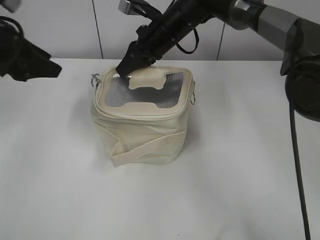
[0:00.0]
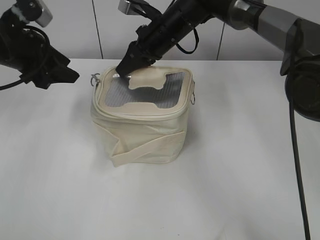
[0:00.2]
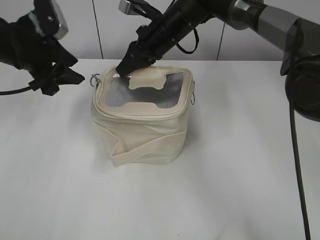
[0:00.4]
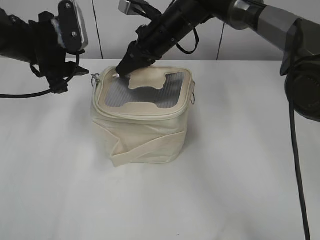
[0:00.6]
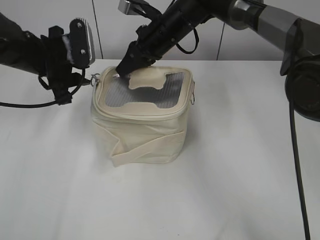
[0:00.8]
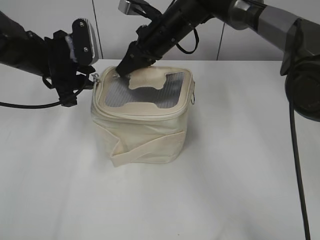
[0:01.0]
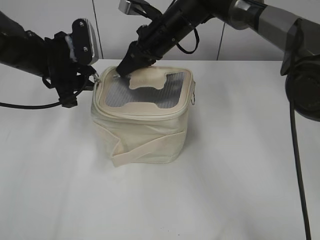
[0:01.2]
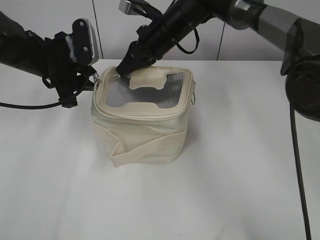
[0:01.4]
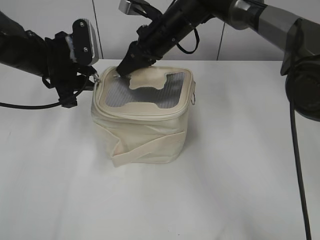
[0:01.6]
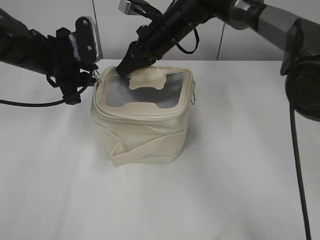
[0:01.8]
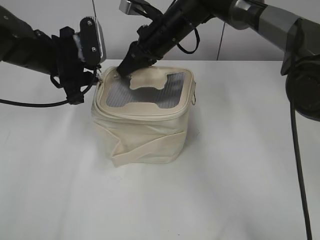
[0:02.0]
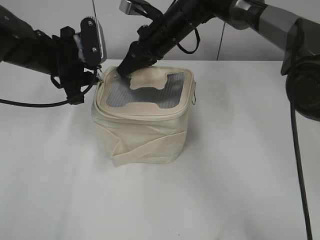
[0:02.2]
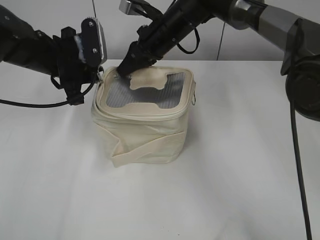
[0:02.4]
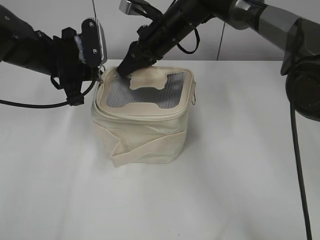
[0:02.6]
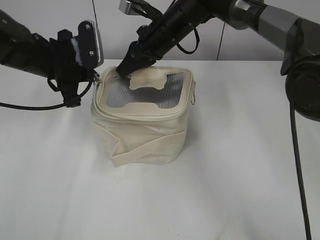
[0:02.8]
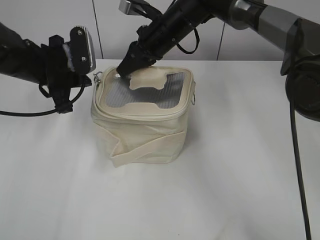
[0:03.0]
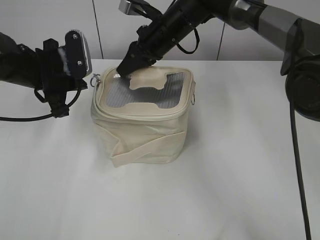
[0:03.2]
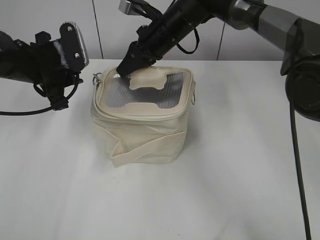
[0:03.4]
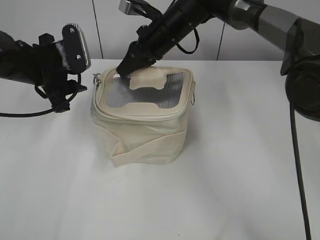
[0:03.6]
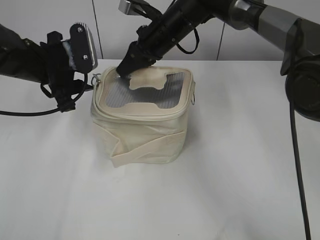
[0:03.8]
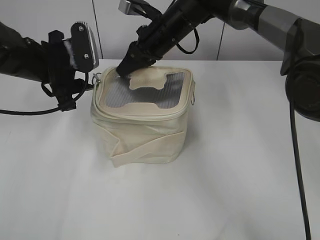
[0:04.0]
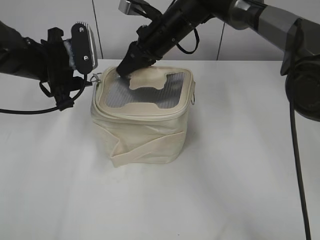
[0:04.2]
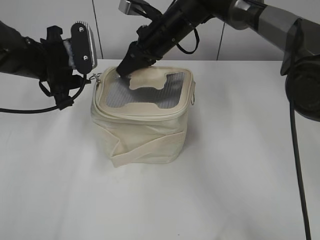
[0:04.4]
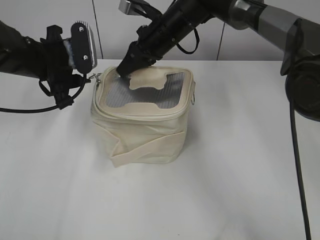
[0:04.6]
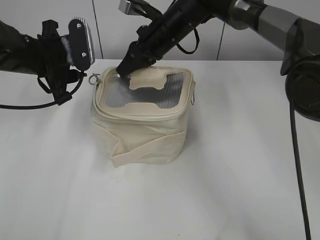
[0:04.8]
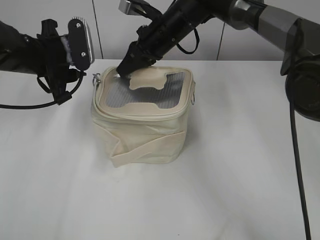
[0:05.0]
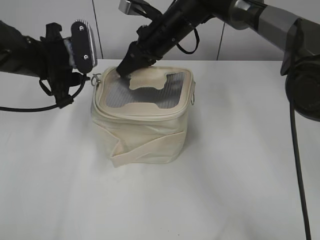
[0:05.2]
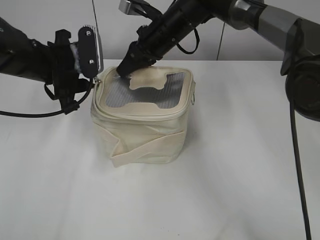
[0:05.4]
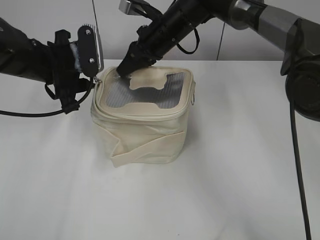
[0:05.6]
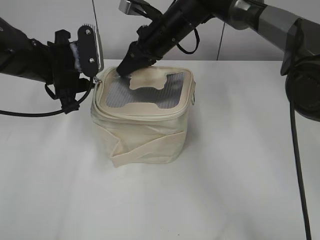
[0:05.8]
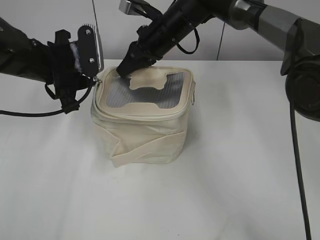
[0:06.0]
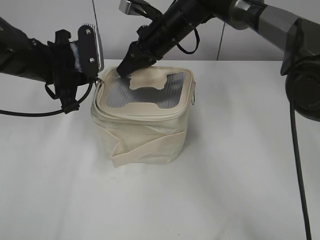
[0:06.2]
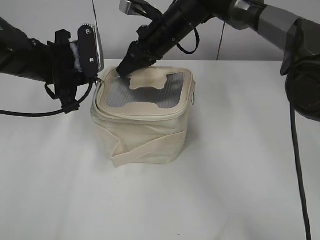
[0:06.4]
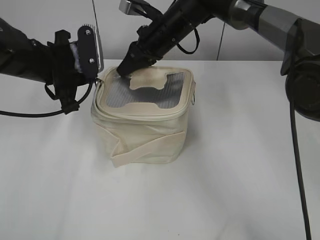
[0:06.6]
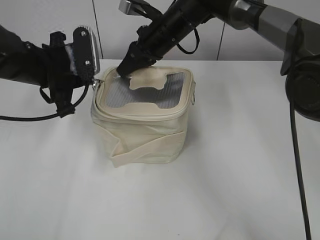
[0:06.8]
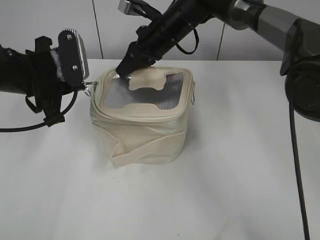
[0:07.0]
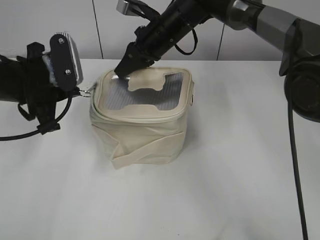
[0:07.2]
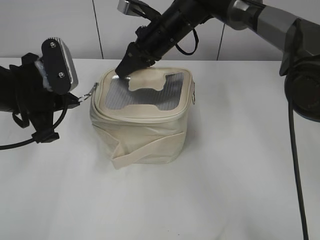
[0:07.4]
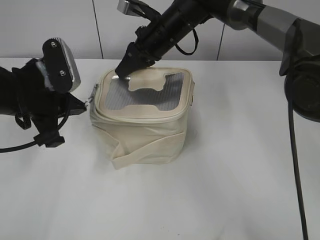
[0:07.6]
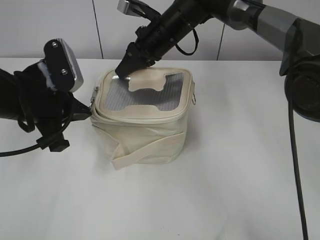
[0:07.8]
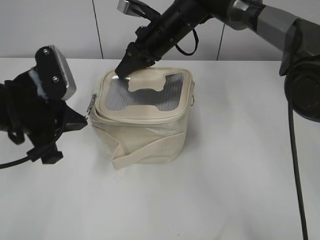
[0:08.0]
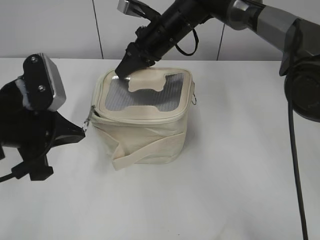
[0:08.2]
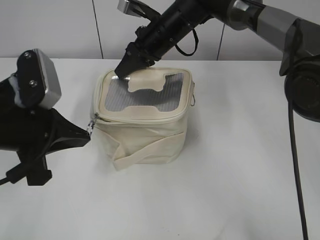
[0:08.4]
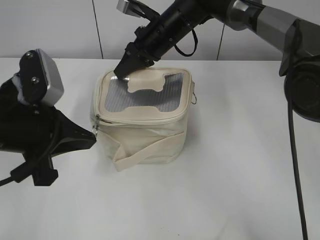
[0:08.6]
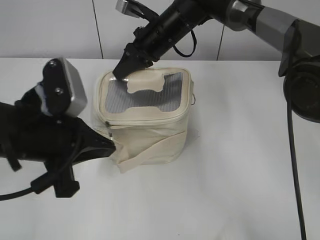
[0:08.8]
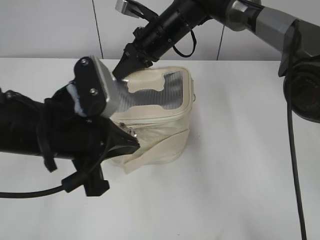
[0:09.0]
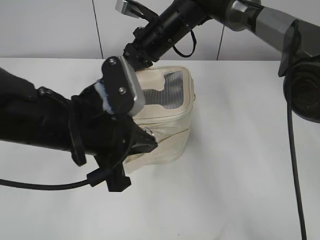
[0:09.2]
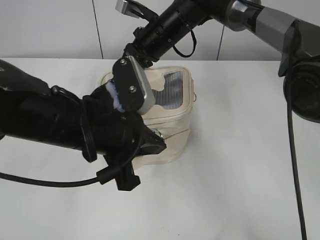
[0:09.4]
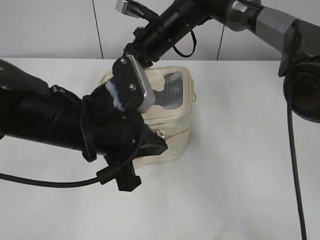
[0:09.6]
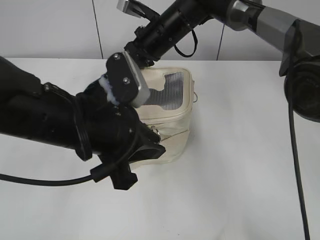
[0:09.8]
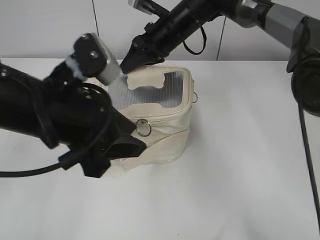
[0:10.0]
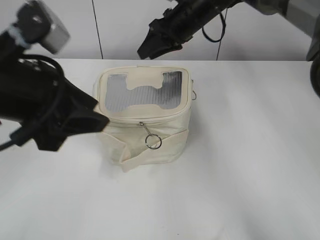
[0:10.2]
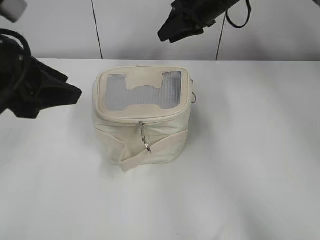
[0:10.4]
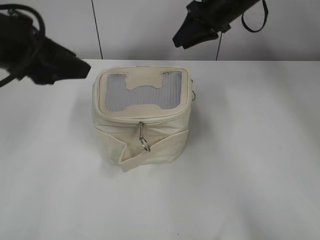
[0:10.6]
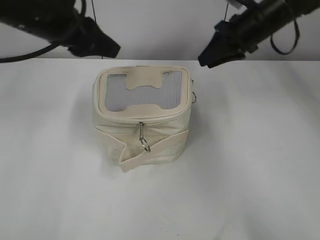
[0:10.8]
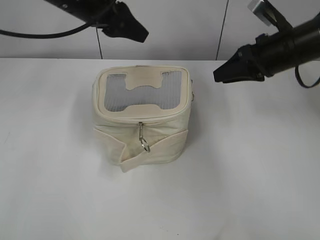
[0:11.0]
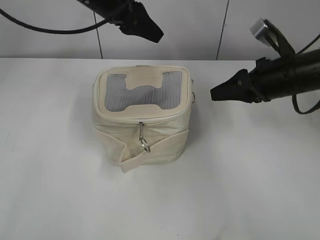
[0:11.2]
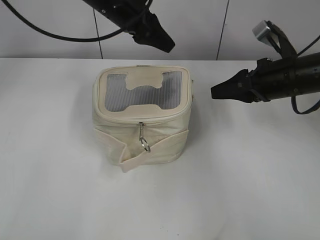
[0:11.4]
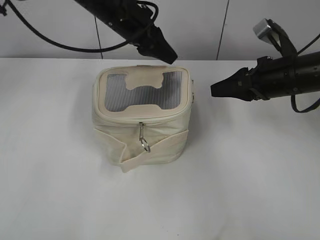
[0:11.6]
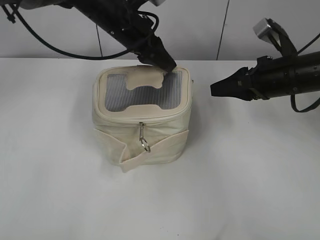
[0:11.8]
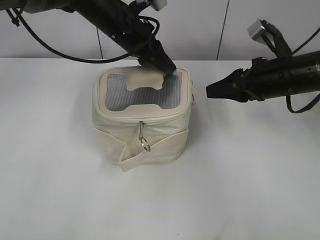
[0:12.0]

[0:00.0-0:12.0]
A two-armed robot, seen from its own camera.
Step, 0:00.0 to 0:10.0: Zip up the bag with your left hand.
0:00.0 to 0:01.6: The left gripper goes about 10 cm to the right, downward and forward.
0:01.6 to 0:03.0: The left gripper closes.
0:03.0 to 0:04.4: The left gripper opens its fingers.
0:04.4 to 0:06.0: The grippers make only small movements.
0:06.0 to 0:07.6: The left gripper is displaced backward by about 5 cm, and closes.
0:07.6 to 0:09.0: The left gripper shifts about 10 cm backward and to the right.
0:09.0 to 0:10.4: The left gripper travels upward and to the left by approximately 10 cm, and opens; the right gripper shifts approximately 10 cm to the right, and opens its fingers.
0:10.4 to 0:12.0: The left gripper travels forward and to the right by roughly 25 cm; the right gripper shifts about 20 cm backward, to the right and downward.

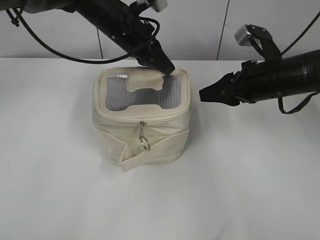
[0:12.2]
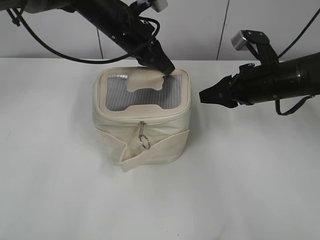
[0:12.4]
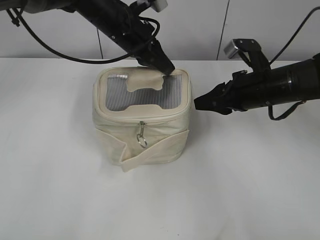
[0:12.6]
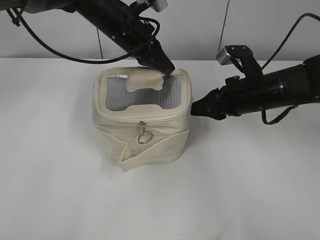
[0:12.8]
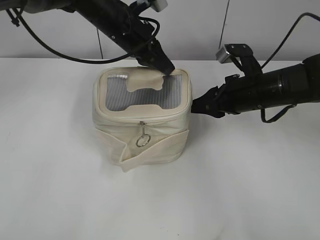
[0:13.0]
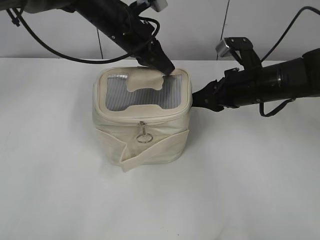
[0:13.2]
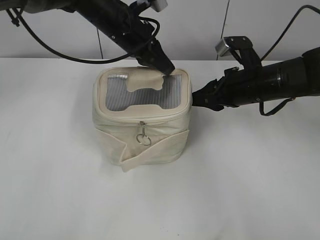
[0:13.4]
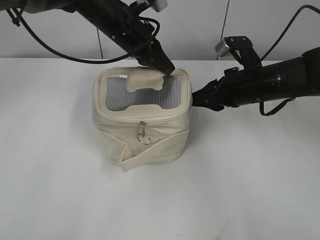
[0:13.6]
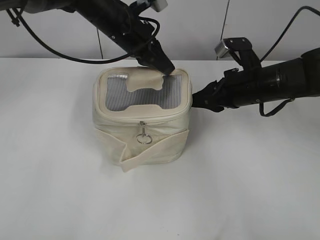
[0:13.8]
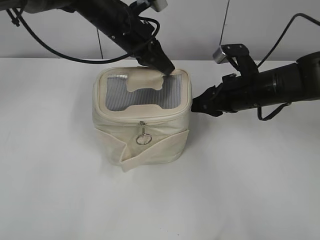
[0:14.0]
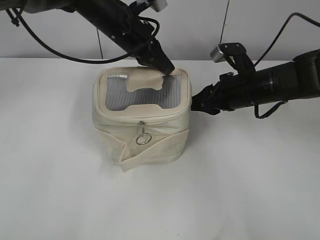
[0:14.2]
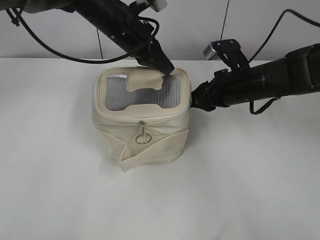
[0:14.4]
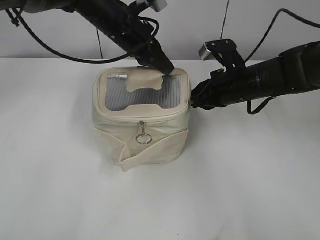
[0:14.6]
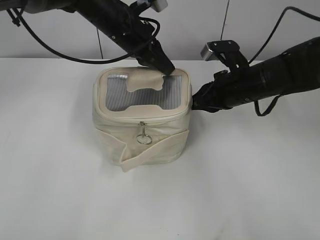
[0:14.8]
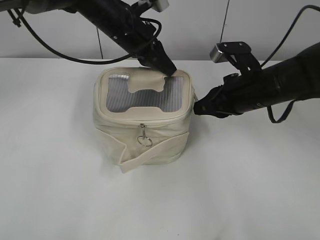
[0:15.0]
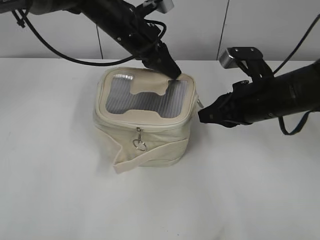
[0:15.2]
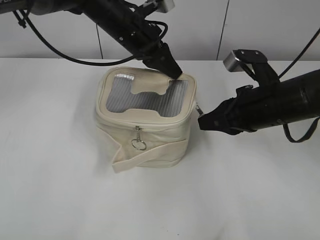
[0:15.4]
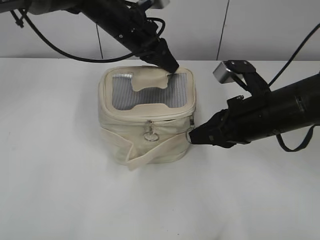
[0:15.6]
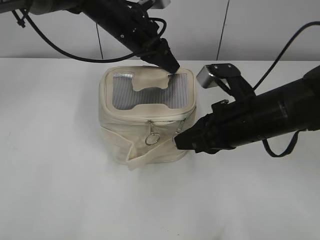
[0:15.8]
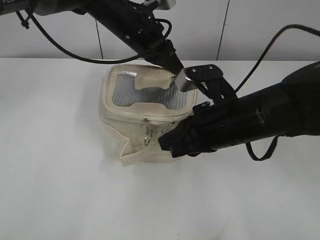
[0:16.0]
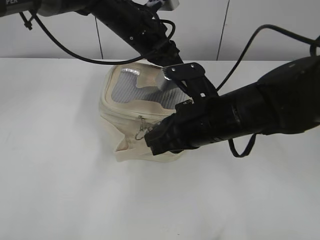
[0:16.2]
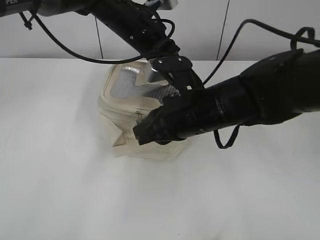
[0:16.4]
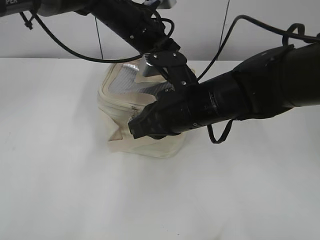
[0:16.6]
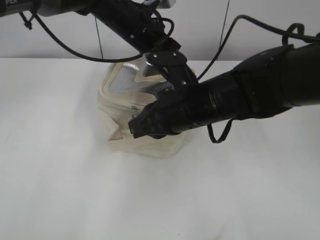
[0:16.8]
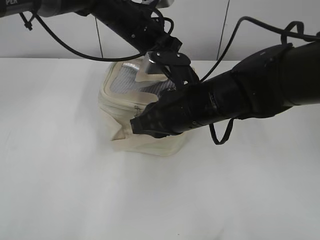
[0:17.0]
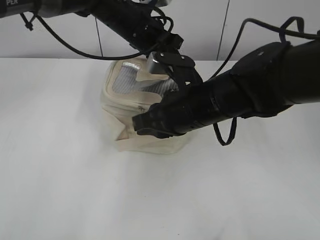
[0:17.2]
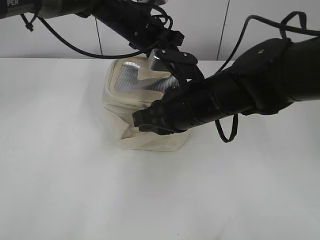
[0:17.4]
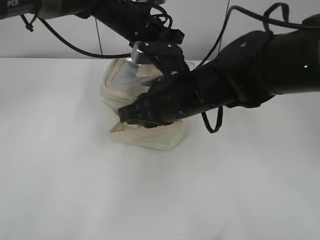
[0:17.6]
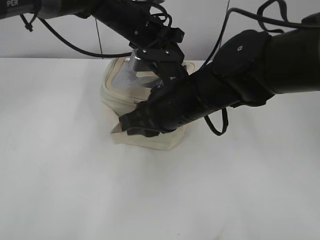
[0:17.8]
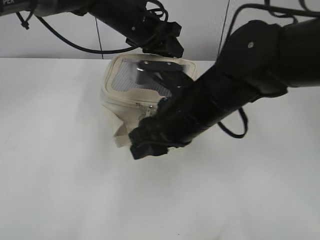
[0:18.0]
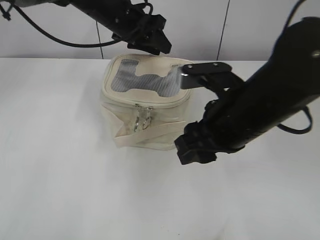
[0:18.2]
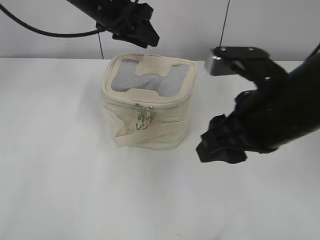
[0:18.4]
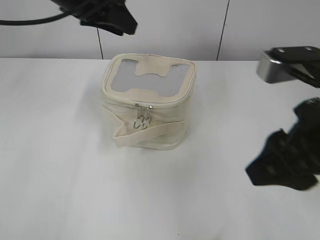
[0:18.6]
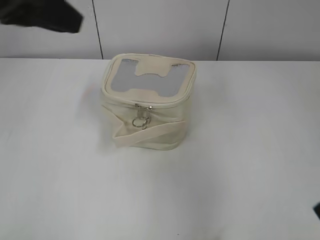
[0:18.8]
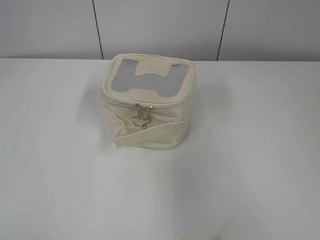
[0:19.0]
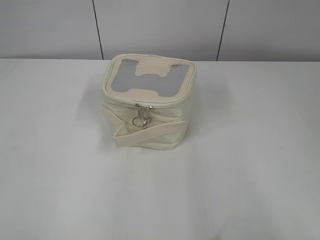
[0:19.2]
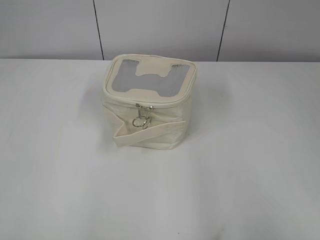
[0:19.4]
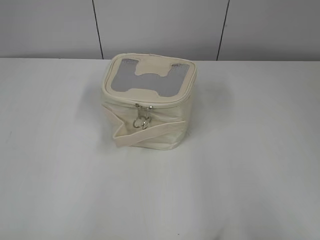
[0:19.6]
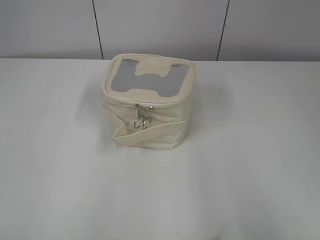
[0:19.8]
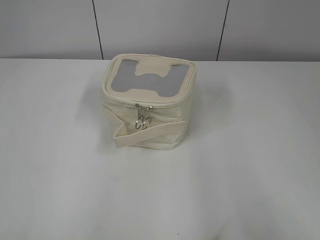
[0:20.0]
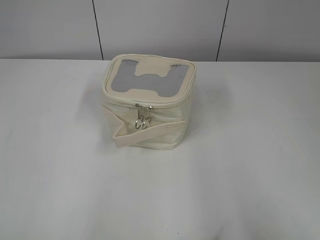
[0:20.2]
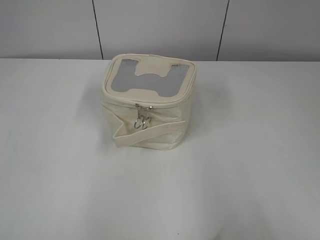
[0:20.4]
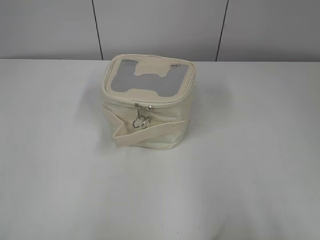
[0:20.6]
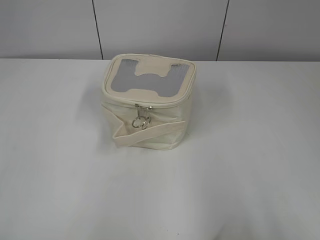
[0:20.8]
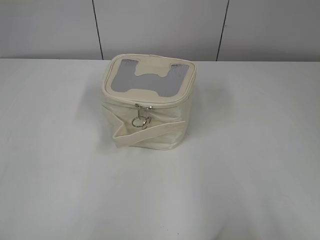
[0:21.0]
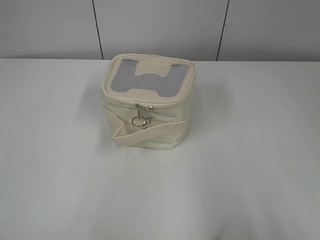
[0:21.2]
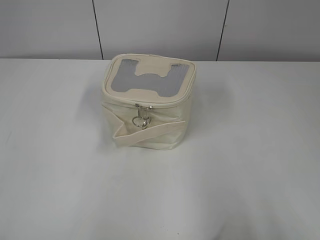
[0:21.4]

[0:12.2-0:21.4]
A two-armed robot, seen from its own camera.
Step, 0:12.2 to 0:17.8: Zip up the bag with your right hand.
0:12.2 to 0:13.8: The grippers move only a little.
0:13.8 to 0:15.2: The right gripper closes.
0:15.2 to 0:16.8: The right gripper heads to the left, covering some 10 cm.
0:16.8 to 0:18.4: The right gripper goes about 10 cm upward, backward and to the right, and opens, while the left gripper heads to the left, covering about 5 cm, and opens up.
0:18.4 to 0:19.8: The right gripper shifts approximately 25 cm backward and to the right. The left gripper moves backward and to the left, about 50 cm.
